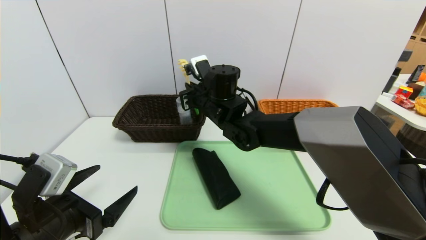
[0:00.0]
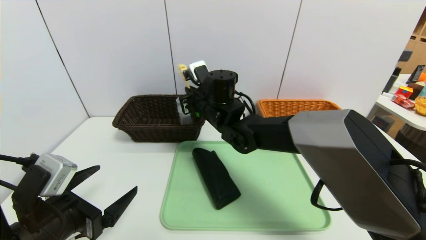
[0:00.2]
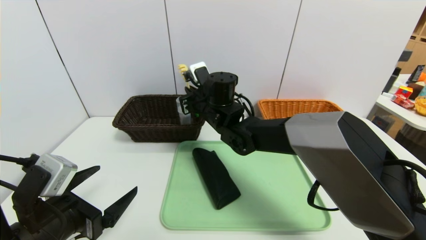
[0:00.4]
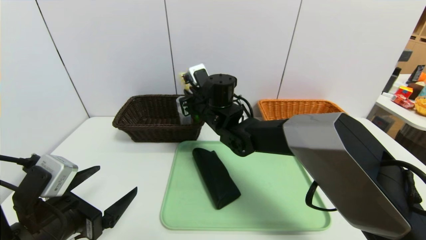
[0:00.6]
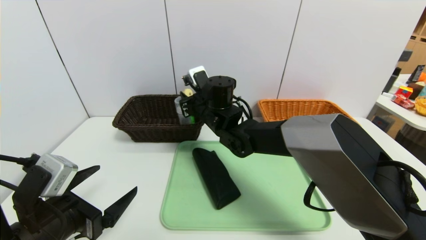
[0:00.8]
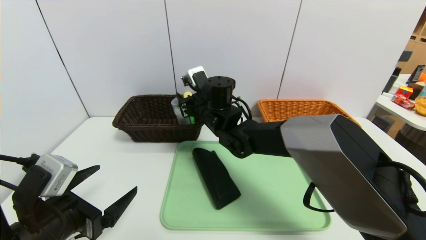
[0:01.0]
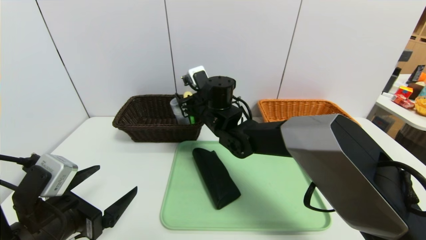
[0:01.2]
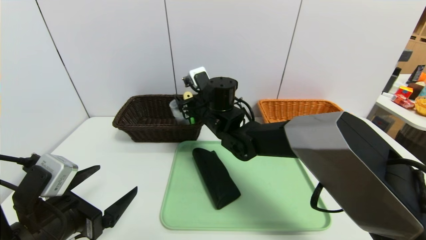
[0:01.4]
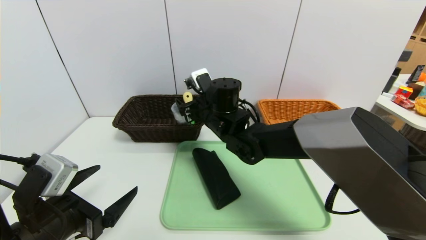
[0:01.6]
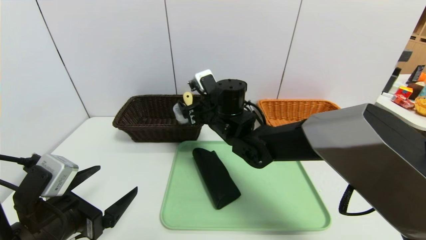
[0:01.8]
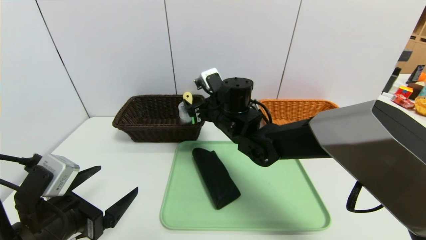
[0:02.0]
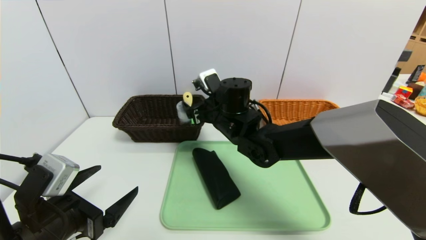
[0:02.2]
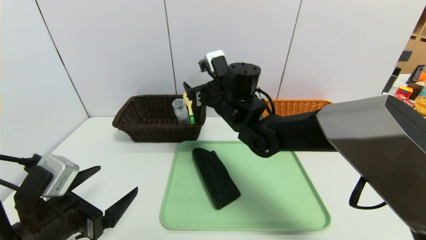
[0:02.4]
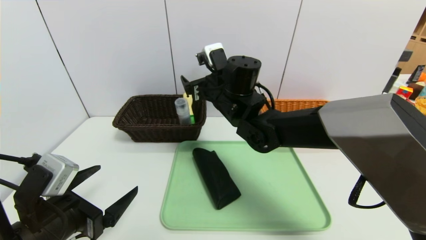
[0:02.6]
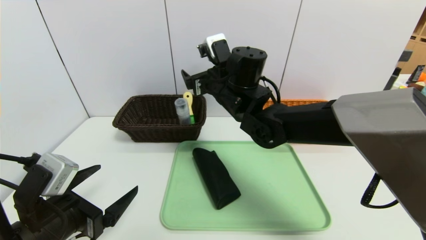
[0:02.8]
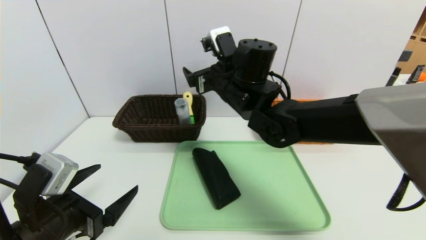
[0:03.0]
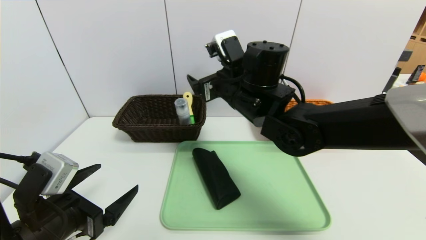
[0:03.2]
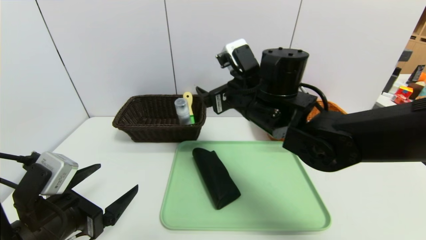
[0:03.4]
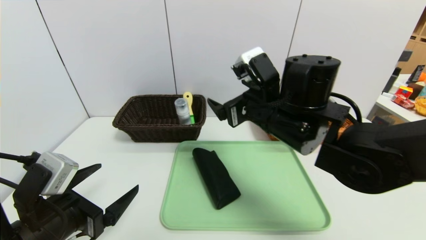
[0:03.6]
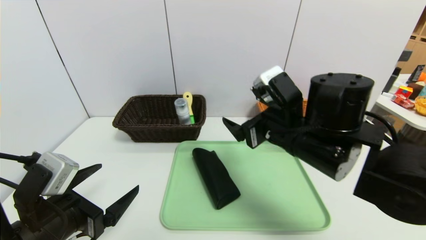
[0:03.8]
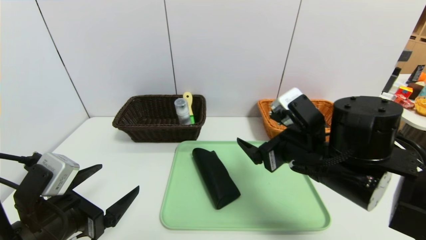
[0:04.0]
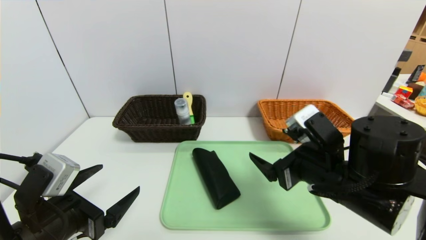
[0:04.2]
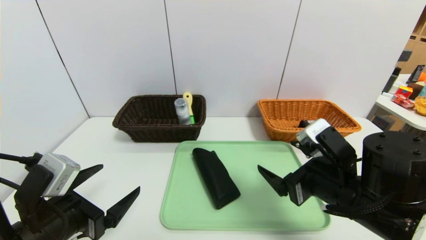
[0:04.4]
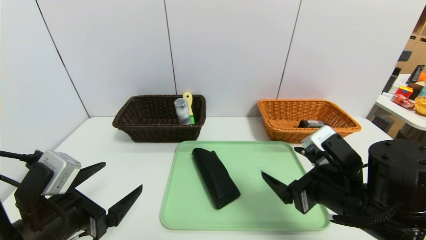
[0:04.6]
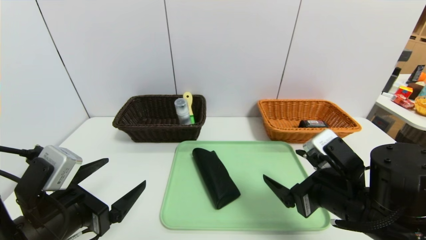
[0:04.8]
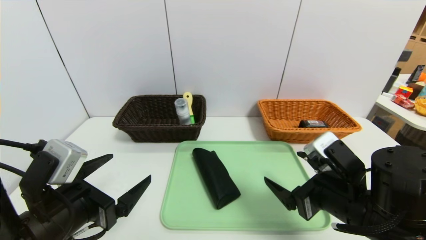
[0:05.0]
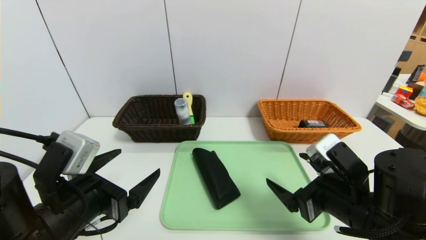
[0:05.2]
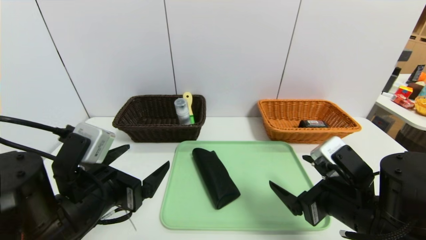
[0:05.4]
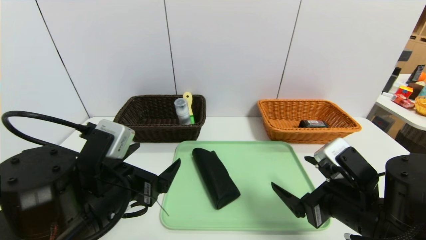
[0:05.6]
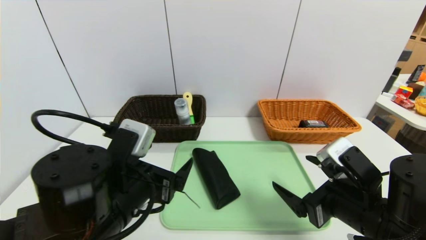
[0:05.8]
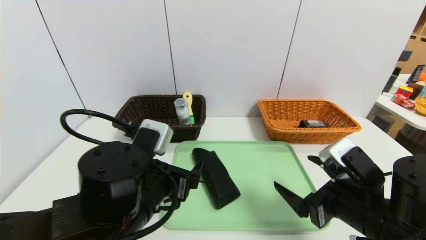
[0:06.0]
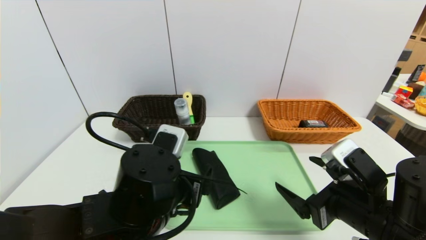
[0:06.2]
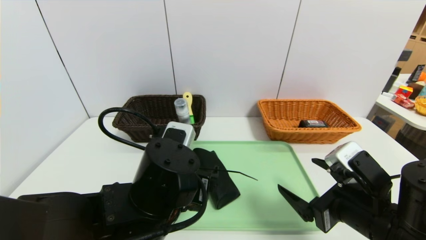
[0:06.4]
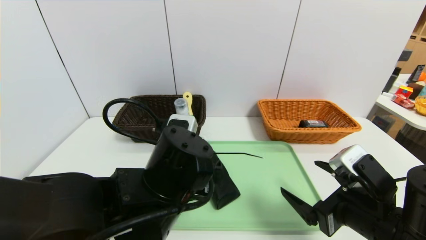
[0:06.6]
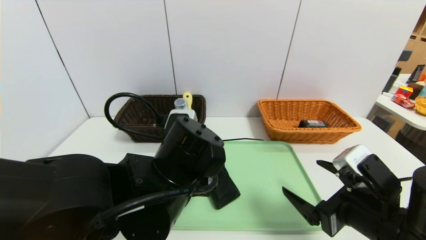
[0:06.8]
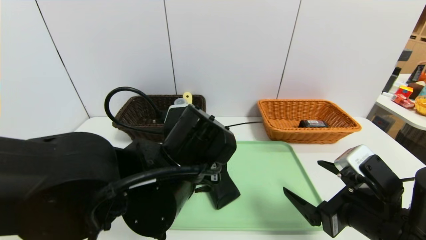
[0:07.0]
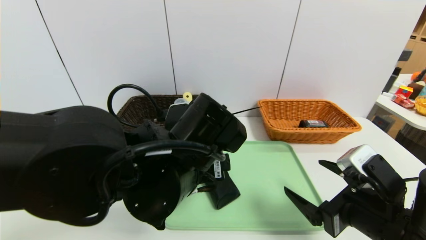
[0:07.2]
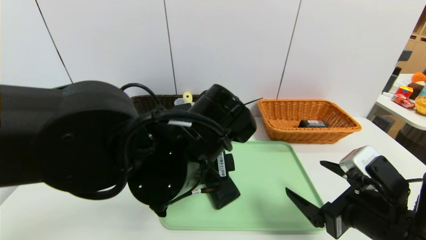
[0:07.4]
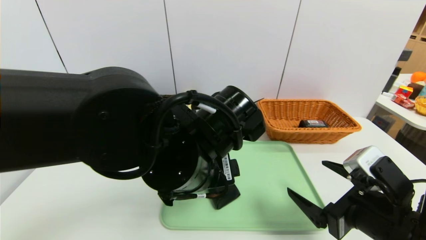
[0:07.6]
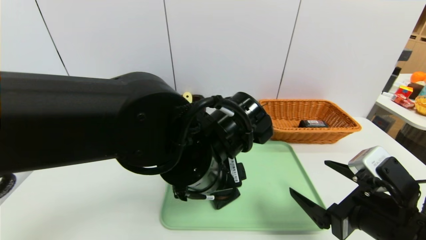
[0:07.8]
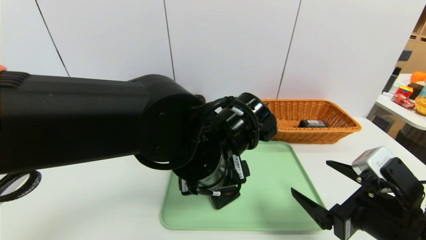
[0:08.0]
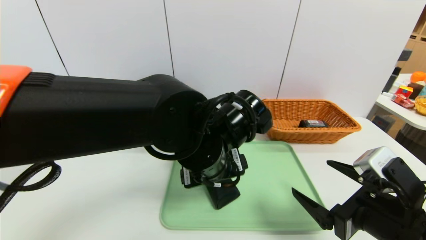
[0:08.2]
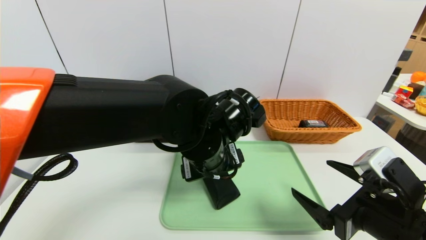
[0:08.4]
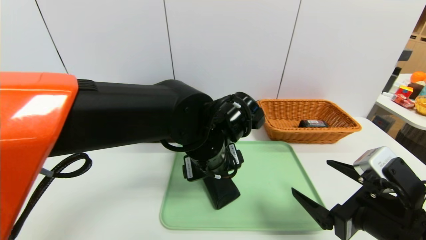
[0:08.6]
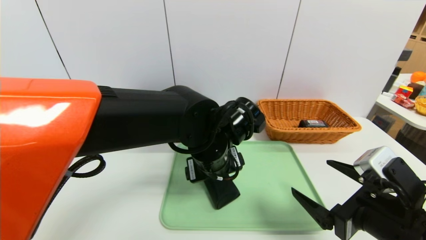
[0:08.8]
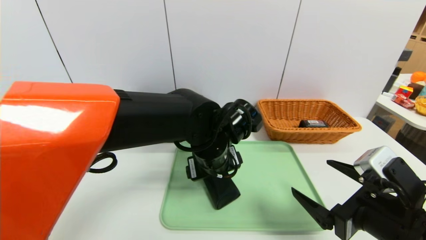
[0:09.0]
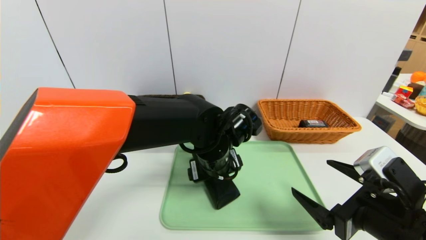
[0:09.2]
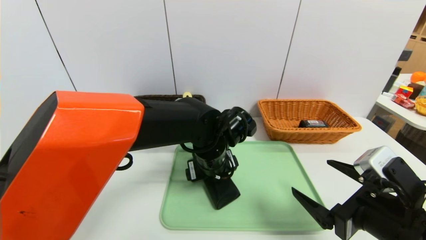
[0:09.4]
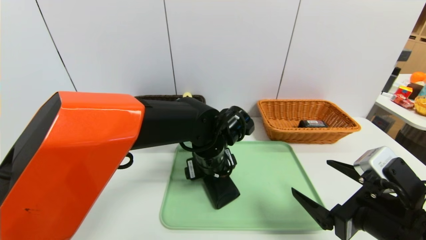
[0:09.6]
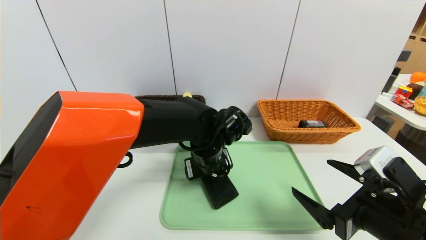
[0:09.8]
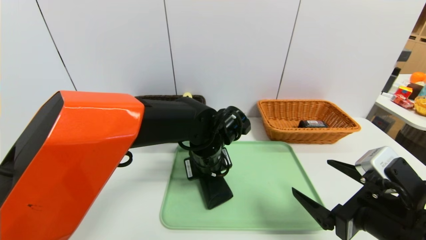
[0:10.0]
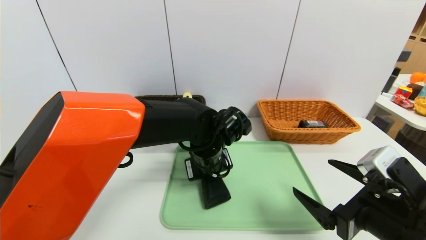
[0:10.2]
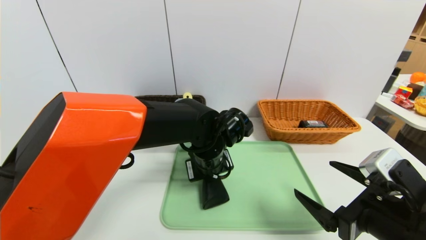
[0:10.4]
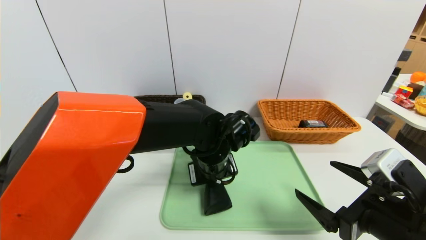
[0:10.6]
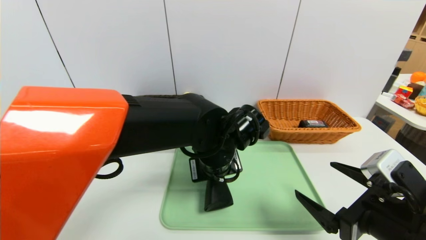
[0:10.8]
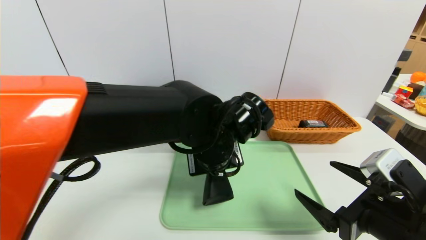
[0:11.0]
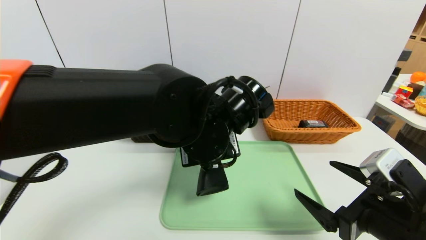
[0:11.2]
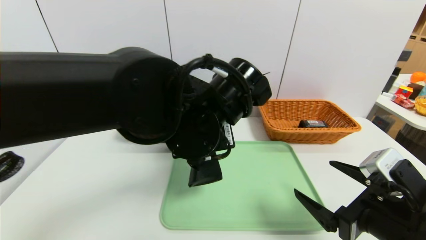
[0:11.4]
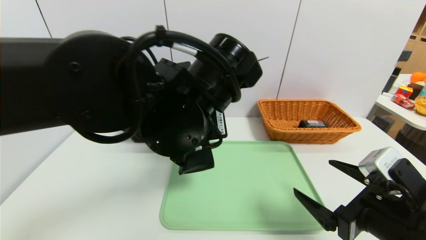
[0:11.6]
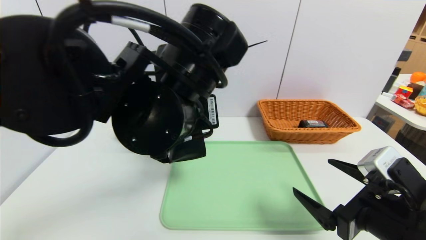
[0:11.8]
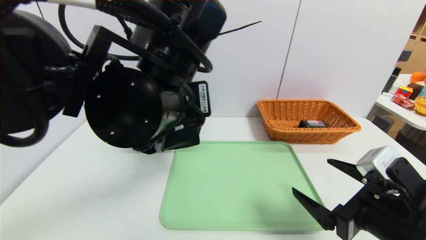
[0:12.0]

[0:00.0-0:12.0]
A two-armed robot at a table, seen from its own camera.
Task of the whole recording: place the food in the right basket with the right gripper, and place the non food items in the left basket with the left gripper.
0:00.0 to 0:01.6: The right gripper opens.
0:01.6 to 0:03.0: The right gripper shifts some 10 cm upward.
0:03.0 to 0:04.4: The right gripper heads backward, to the right and downward, covering approximately 25 cm.
0:04.4 to 0:06.0: The left gripper is displaced to the right by some 15 cm.
0:06.0 to 0:07.6: The left gripper goes about 10 cm to the right and upward.
0:07.6 to 0:09.0: The left gripper heads forward and downward, covering approximately 10 cm.
0:09.0 to 0:10.4: The left gripper closes.
0:10.4 to 0:12.0: The left gripper heads upward and backward, covering some 20 cm.

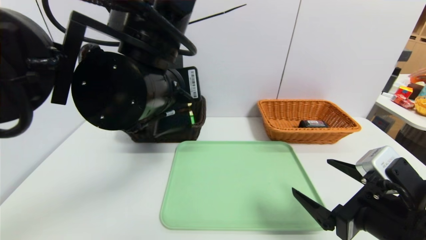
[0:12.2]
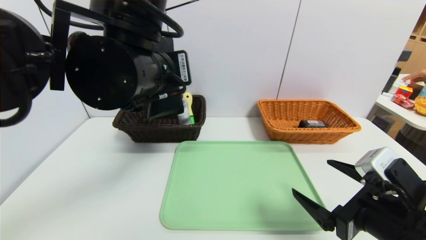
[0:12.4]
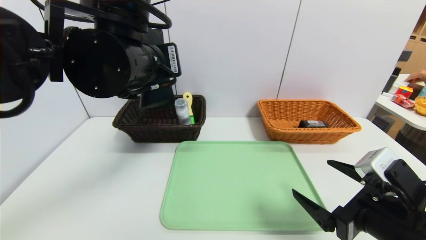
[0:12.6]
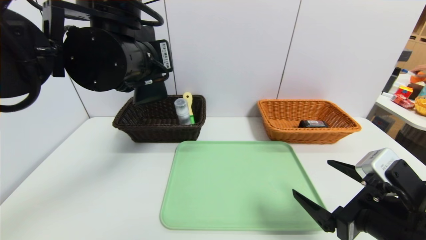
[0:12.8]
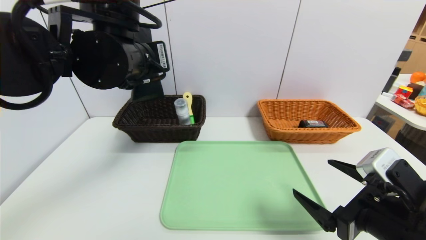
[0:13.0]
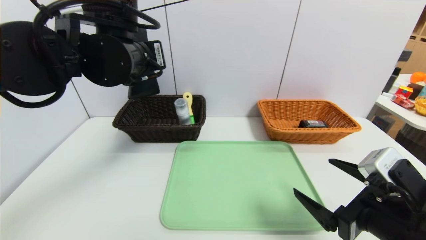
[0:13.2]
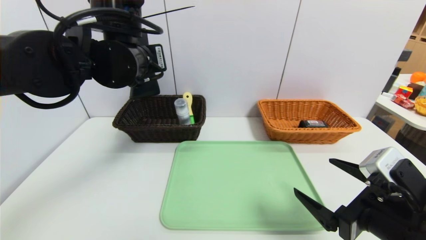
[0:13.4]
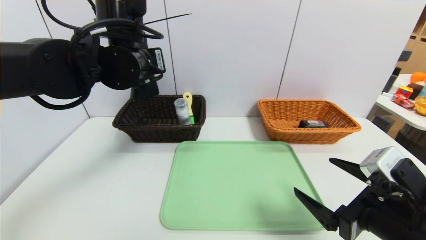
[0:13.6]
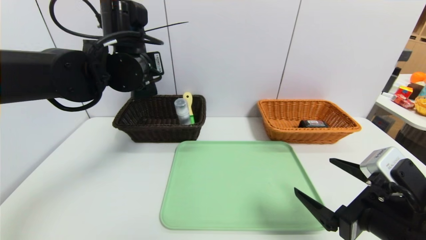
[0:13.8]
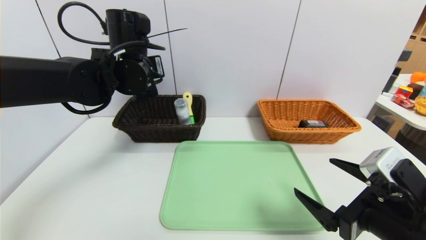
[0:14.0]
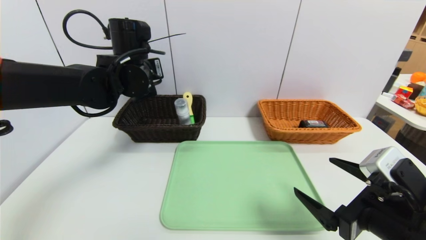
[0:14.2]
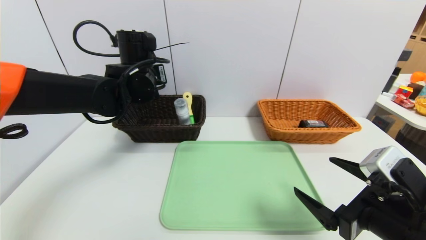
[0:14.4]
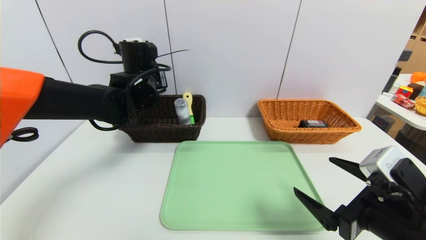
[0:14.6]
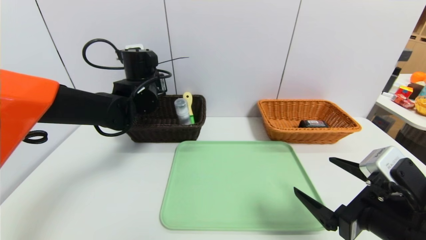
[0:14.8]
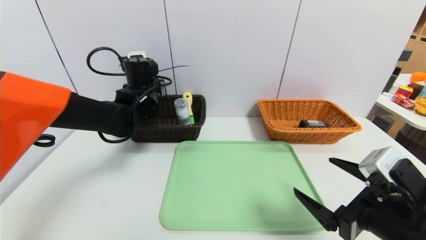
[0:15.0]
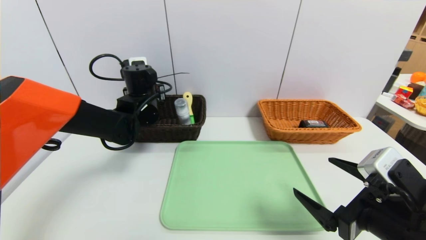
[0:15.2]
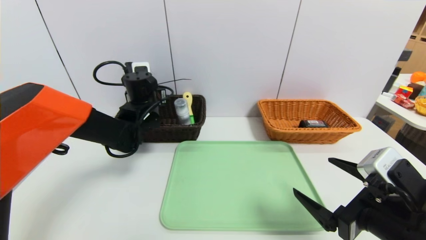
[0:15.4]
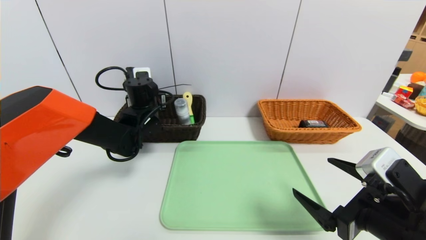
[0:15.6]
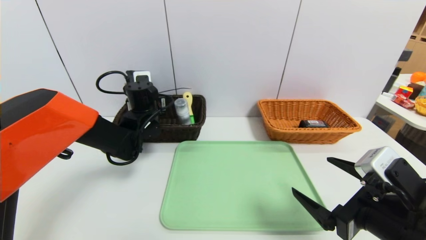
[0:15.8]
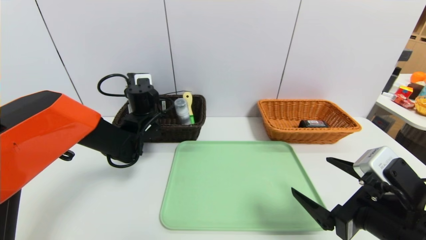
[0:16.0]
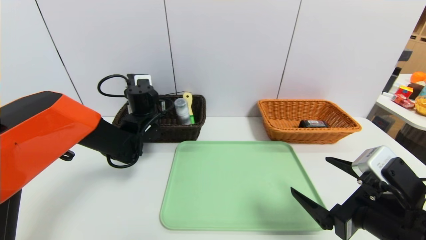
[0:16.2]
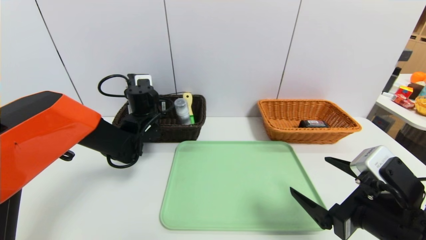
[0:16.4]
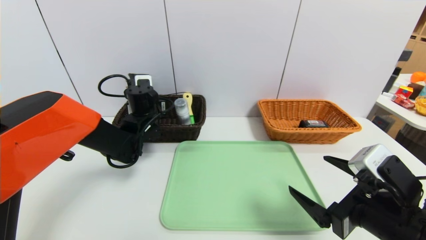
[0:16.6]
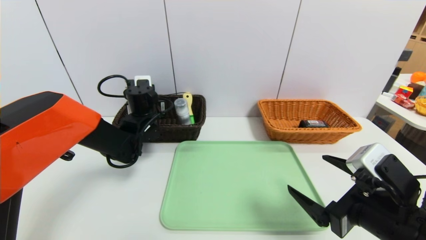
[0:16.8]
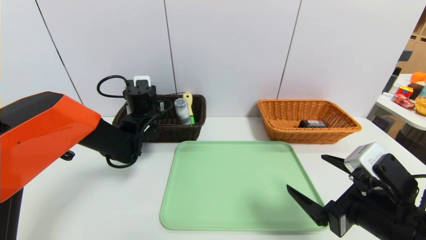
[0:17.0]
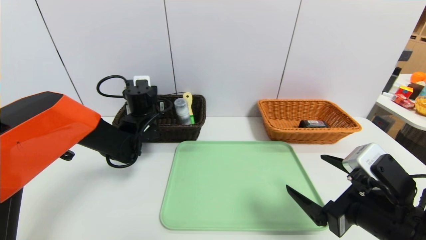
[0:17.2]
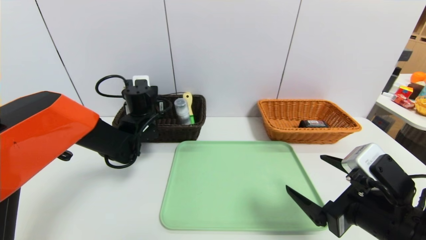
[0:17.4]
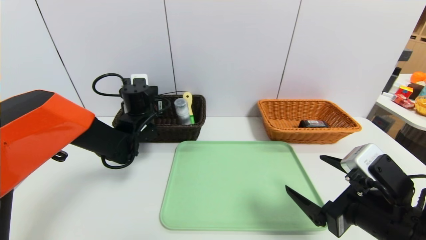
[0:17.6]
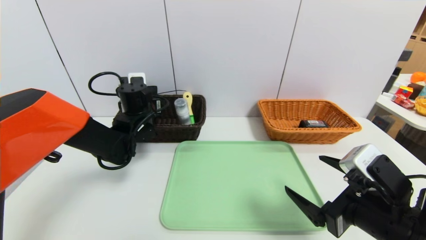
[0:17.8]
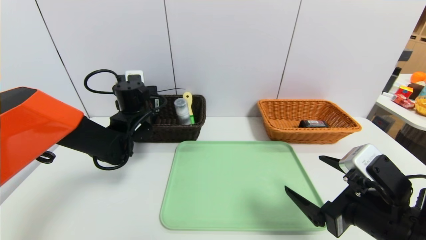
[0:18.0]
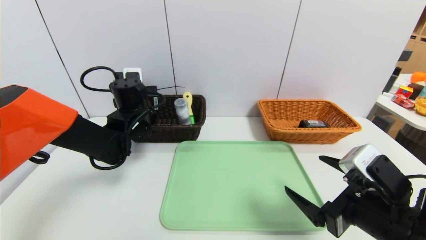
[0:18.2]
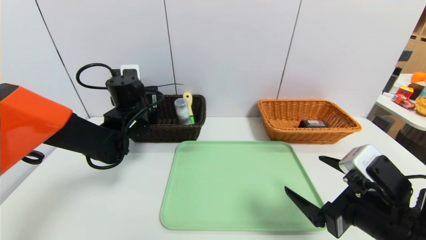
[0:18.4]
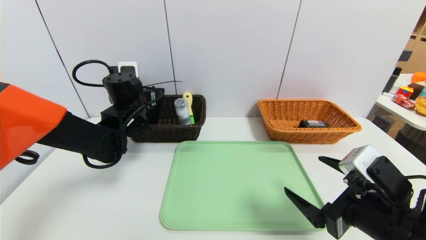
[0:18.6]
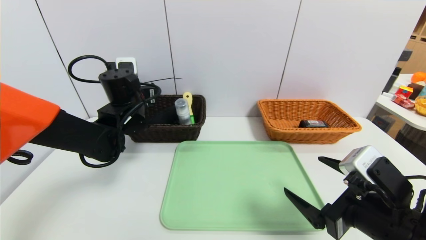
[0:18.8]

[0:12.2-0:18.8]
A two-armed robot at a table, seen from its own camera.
Task of the whole recording: place the food in the right basket with the right gripper, and place the non food items in the left basket with the left gripper.
0:12.2 to 0:13.8: The left gripper is displaced forward and to the left by roughly 15 cm.
0:13.8 to 0:15.4: The left gripper shifts approximately 15 cm downward and forward.
0:15.4 to 0:17.2: The left gripper opens.
0:17.2 to 0:18.8: The left gripper shifts by some 5 cm.
